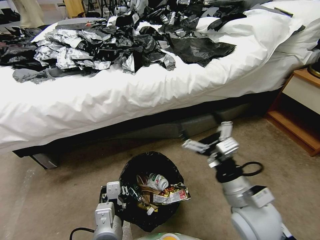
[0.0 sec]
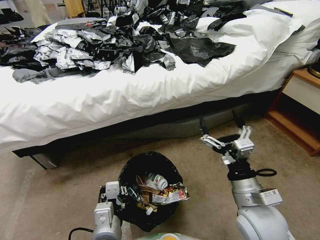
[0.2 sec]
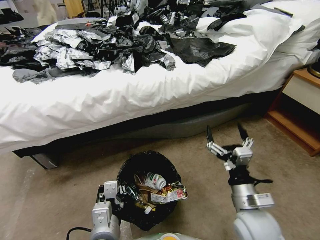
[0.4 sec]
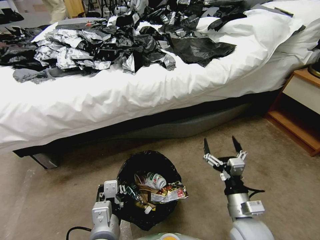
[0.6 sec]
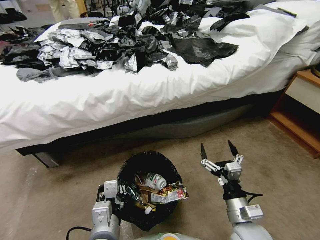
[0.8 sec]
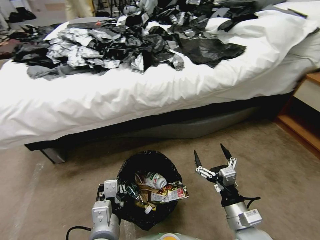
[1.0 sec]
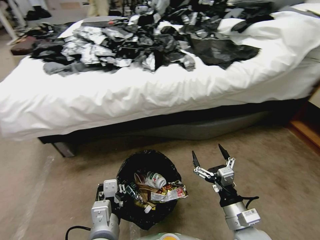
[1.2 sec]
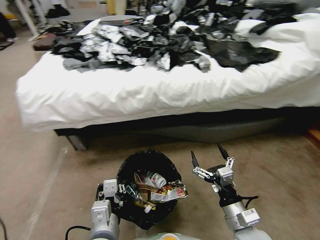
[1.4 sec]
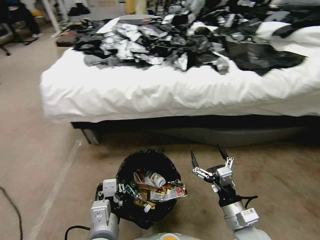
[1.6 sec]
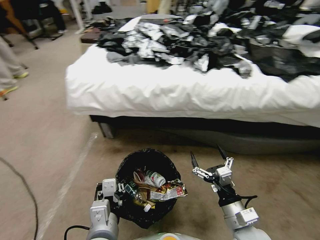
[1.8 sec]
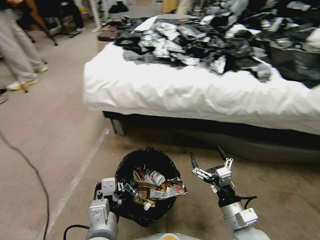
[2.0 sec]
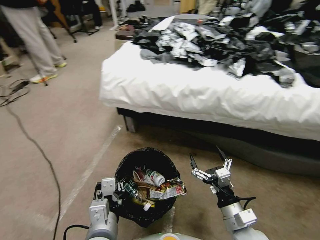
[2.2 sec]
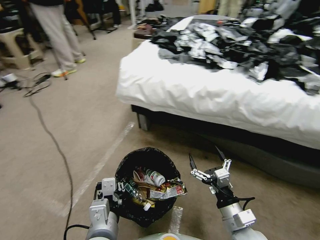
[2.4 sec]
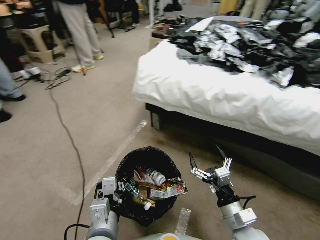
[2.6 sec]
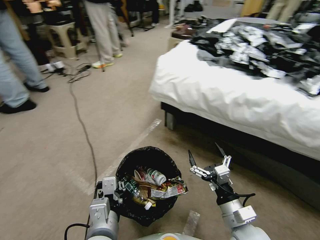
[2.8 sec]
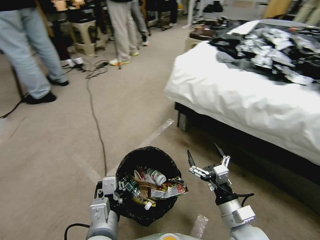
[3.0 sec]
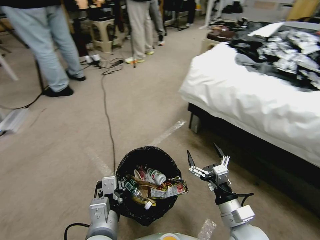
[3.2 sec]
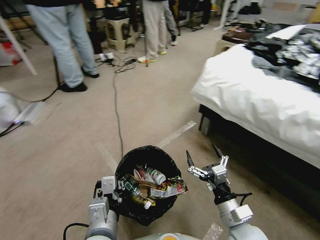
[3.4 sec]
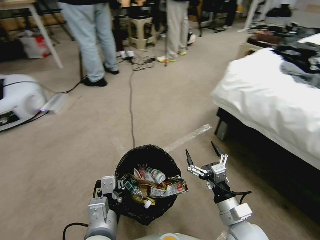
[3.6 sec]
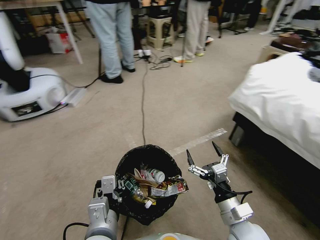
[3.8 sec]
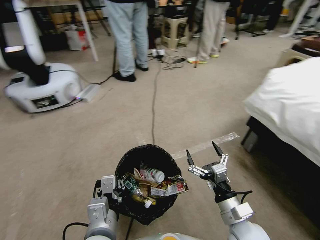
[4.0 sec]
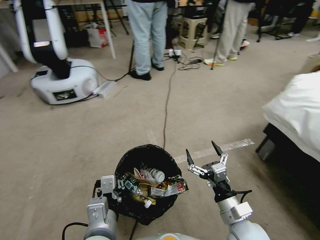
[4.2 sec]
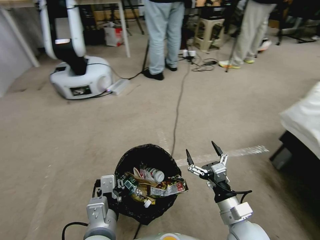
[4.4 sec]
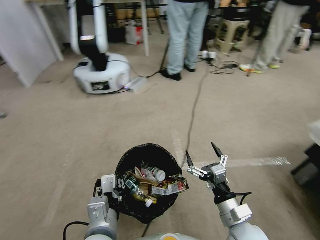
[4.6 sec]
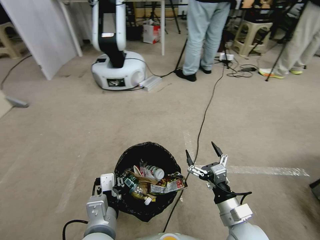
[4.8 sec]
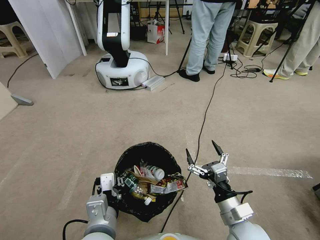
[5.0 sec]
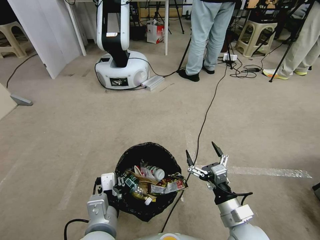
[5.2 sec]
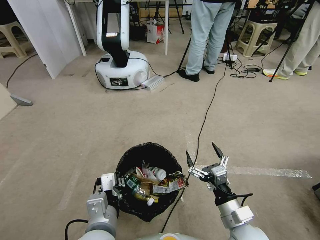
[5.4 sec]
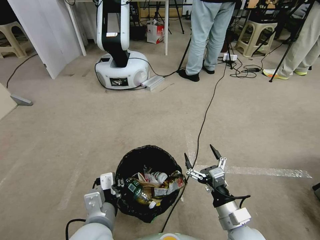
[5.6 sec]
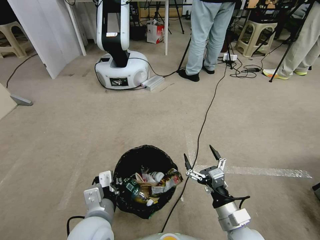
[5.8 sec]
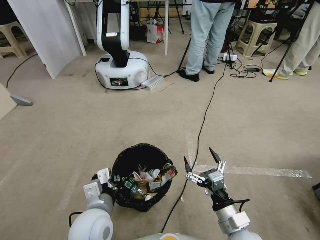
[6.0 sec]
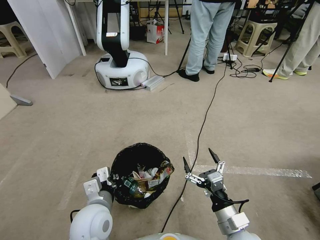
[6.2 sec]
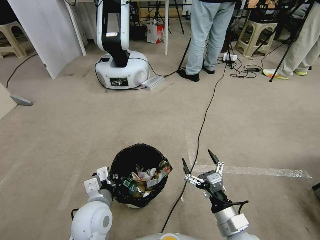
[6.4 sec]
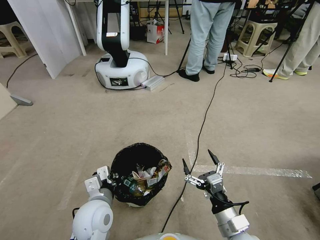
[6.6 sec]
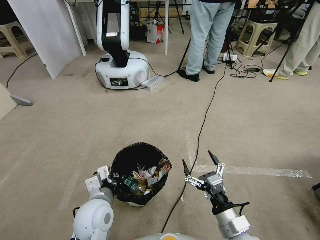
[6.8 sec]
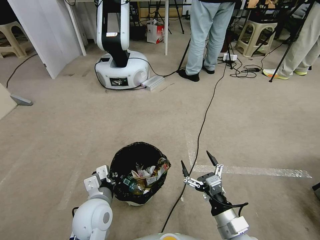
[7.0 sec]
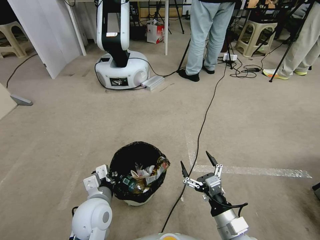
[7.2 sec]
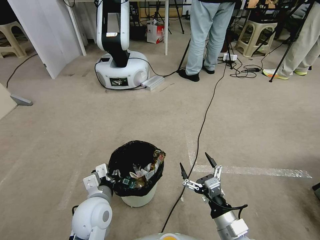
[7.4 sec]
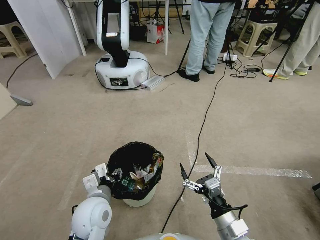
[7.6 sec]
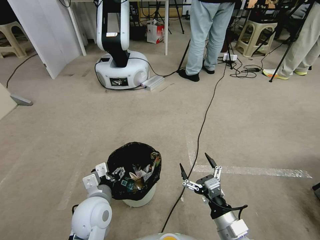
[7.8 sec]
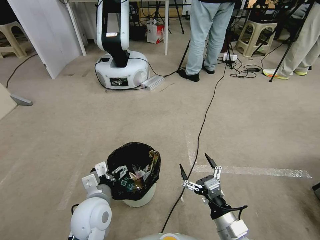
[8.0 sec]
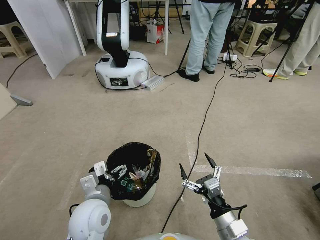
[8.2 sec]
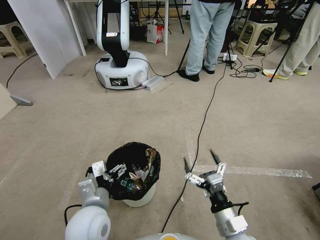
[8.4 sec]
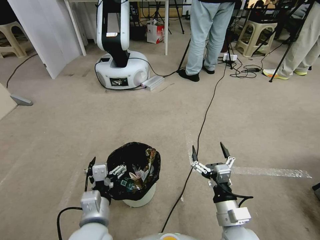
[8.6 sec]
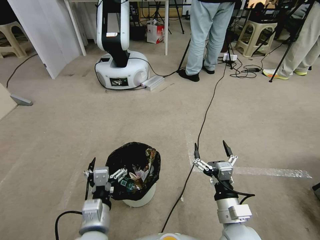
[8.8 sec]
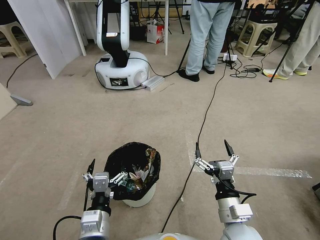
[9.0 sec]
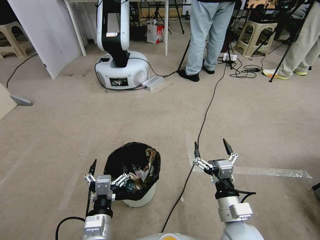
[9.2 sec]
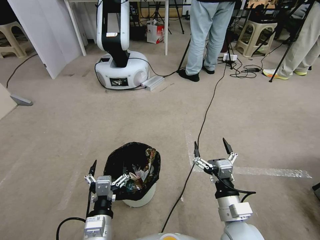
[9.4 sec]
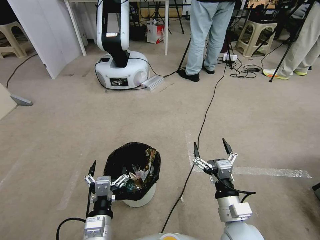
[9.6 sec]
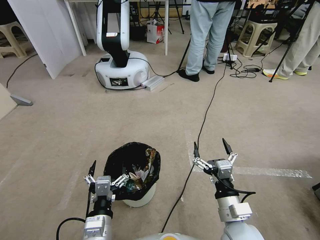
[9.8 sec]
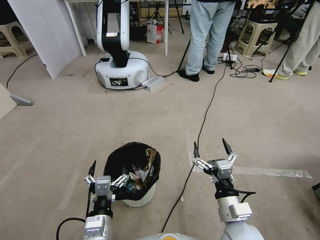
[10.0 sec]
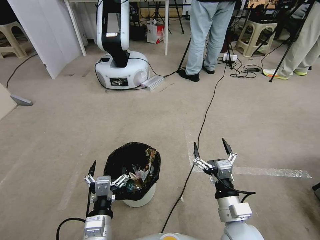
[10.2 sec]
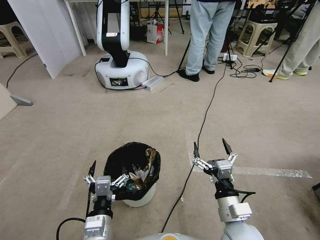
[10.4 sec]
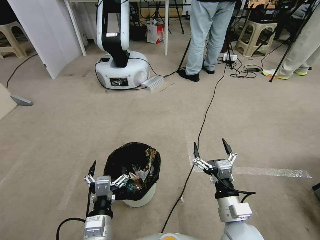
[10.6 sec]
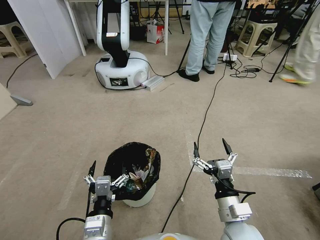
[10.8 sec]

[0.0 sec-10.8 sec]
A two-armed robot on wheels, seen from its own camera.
Task of the whole recording: Pick up the trash bin, then pick up the garbage from the floor and place it into the trash bin.
0.0 sec to 1.6 sec: The right gripper travels downward by roughly 10 cm.
4.6 sec to 6.2 sec: The left gripper travels forward by approximately 5 cm.
6.2 sec to 7.8 sec: The left gripper opens.
7.8 sec to 9.2 sec: The left gripper heads backward, covering roughly 10 cm.
9.2 sec to 10.8 sec: Both grippers stay put.
